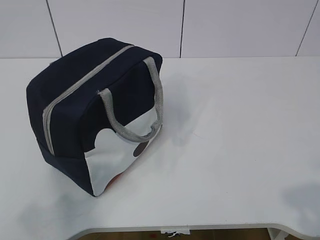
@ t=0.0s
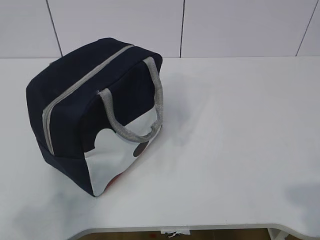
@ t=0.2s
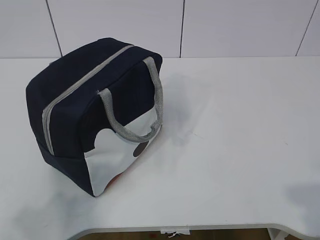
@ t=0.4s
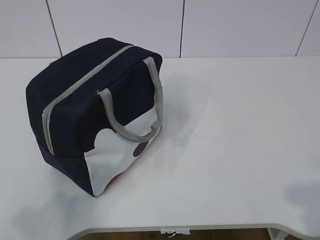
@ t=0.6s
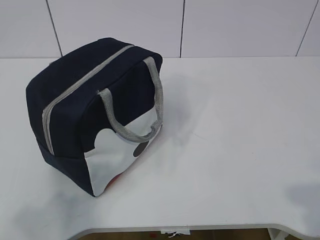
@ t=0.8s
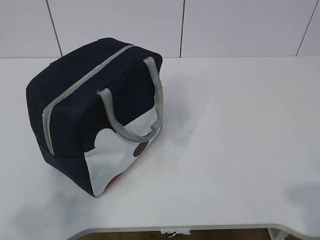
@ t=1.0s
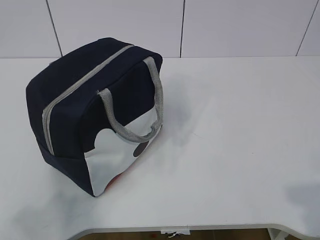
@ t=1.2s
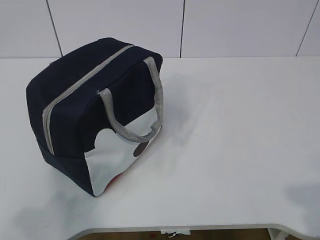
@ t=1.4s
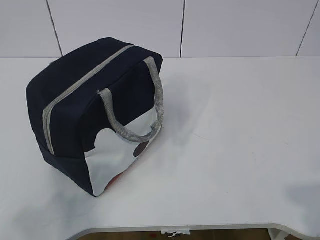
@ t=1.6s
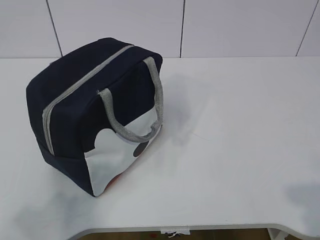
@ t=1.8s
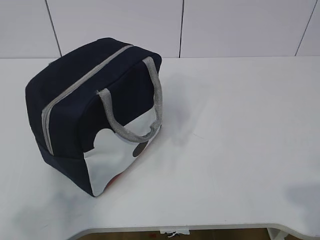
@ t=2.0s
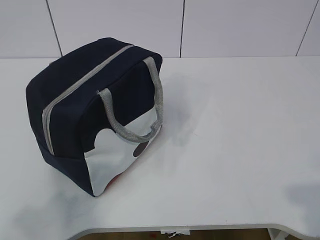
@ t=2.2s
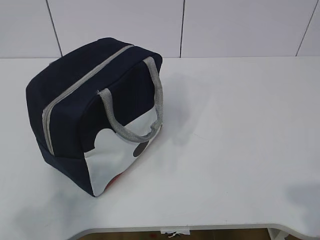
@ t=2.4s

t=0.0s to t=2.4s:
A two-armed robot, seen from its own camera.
t=1.2s to t=2.4s: Both grippers stay put.
